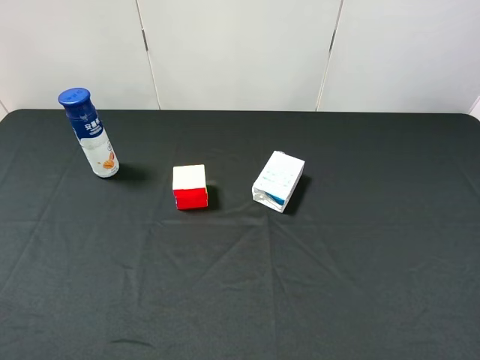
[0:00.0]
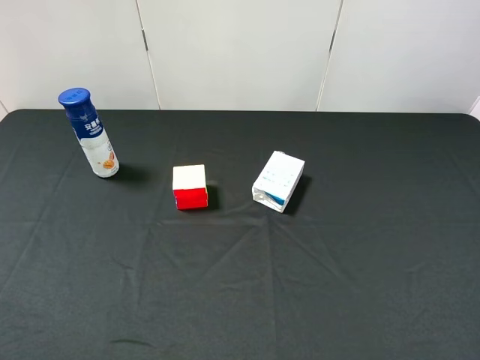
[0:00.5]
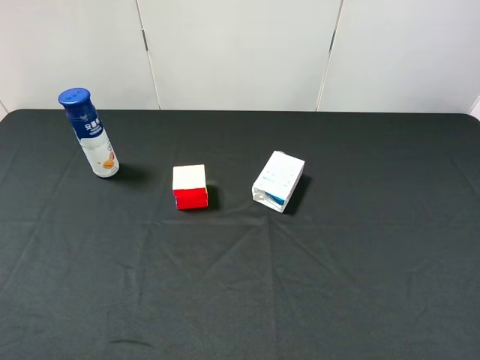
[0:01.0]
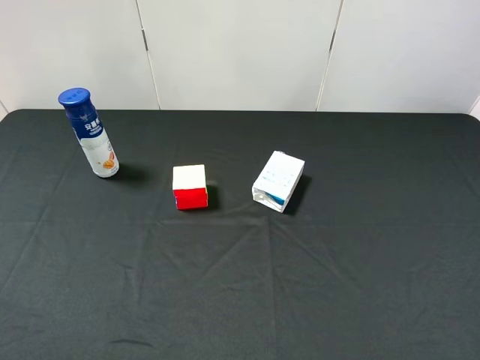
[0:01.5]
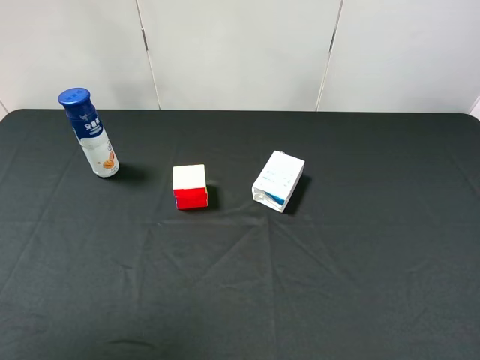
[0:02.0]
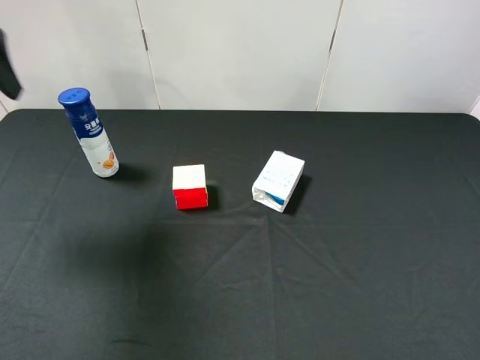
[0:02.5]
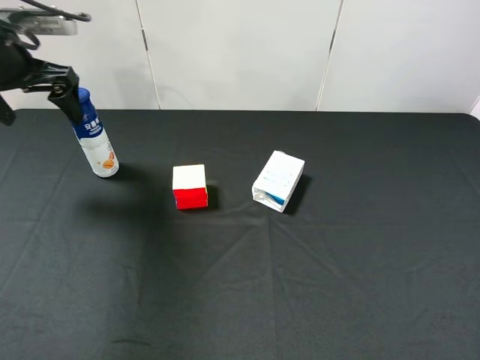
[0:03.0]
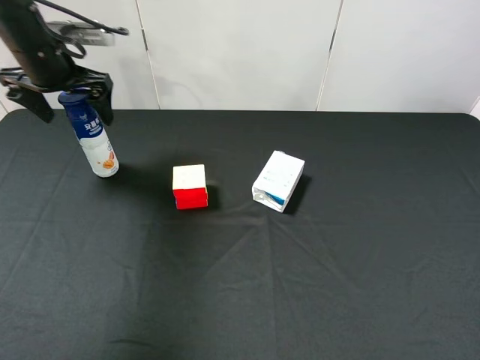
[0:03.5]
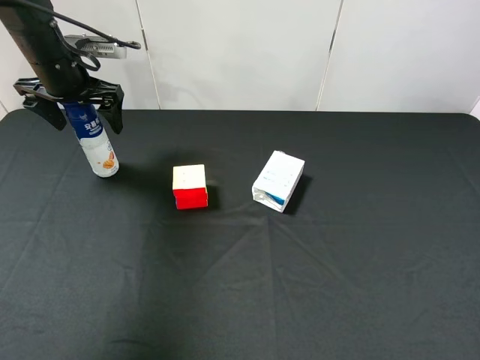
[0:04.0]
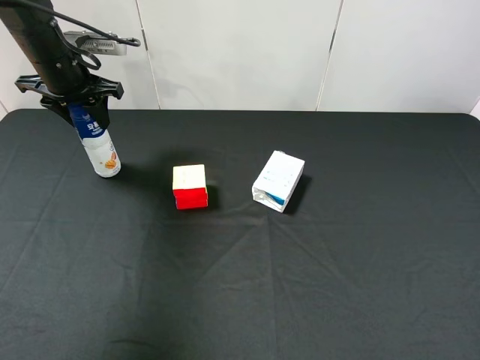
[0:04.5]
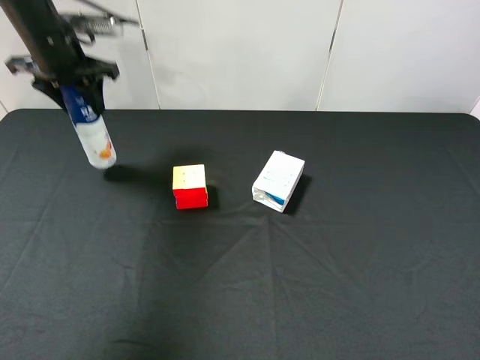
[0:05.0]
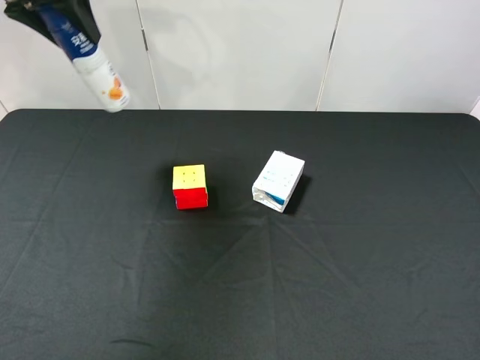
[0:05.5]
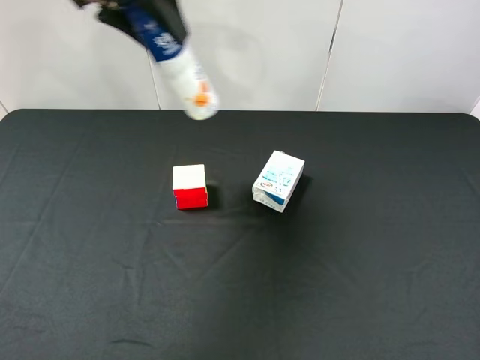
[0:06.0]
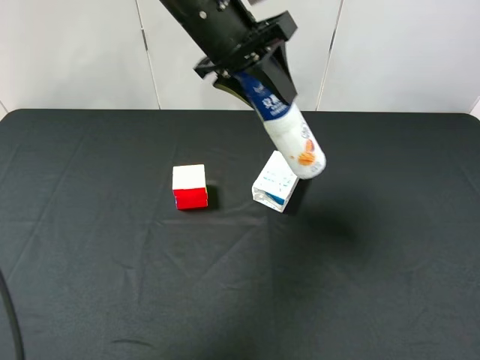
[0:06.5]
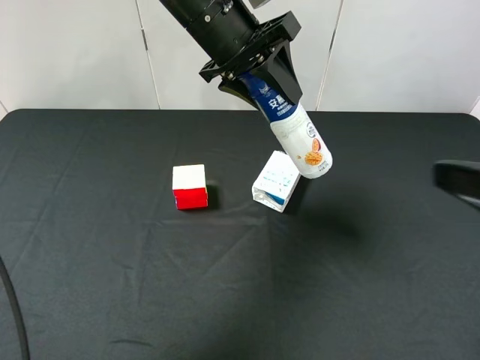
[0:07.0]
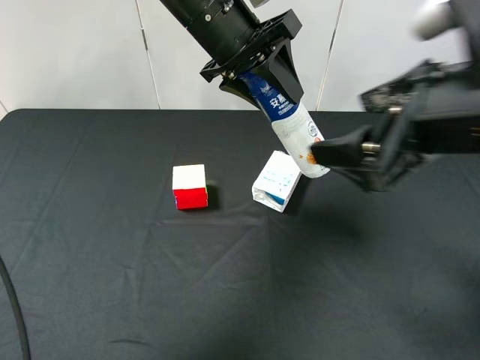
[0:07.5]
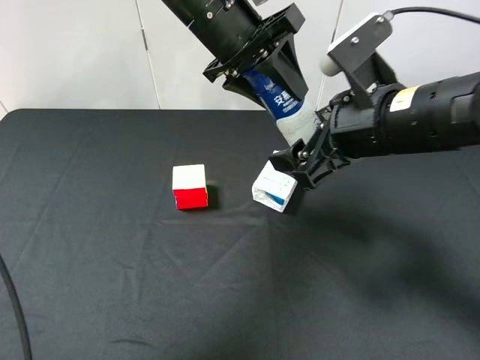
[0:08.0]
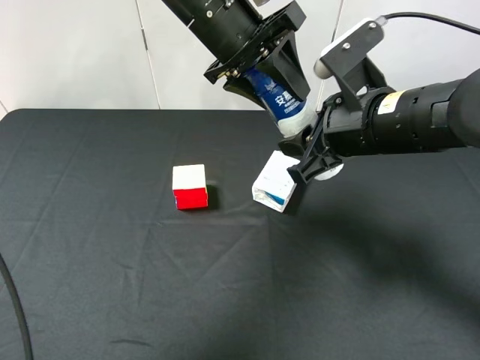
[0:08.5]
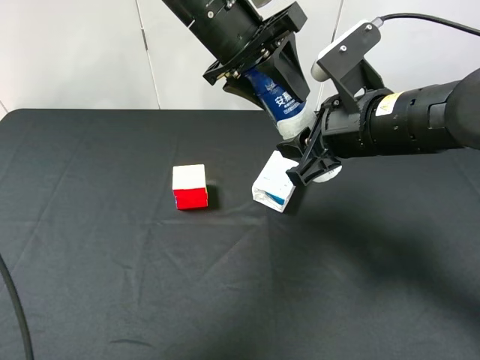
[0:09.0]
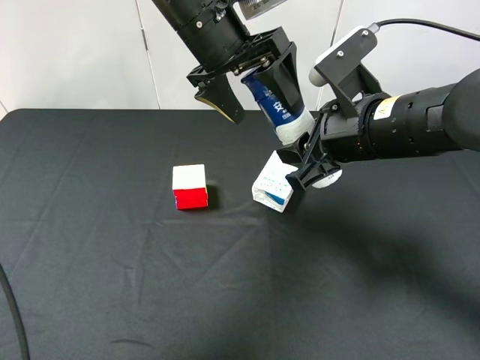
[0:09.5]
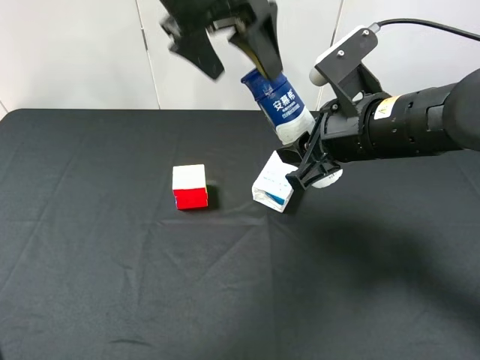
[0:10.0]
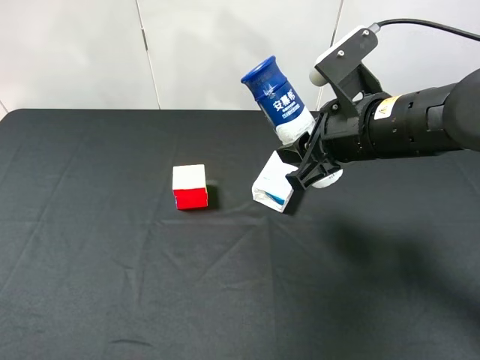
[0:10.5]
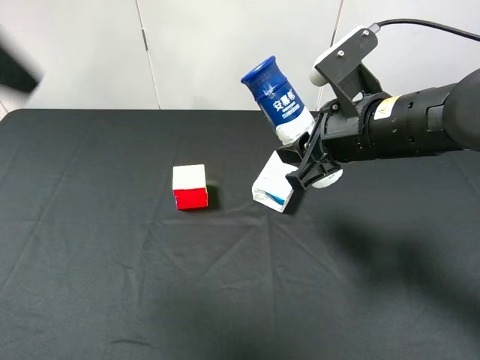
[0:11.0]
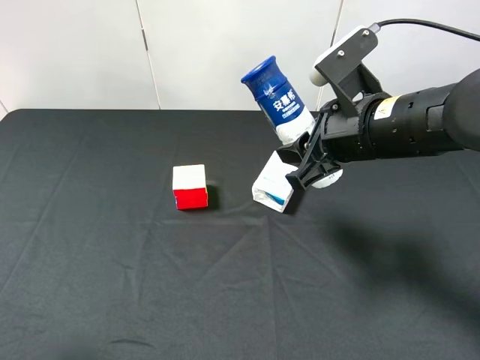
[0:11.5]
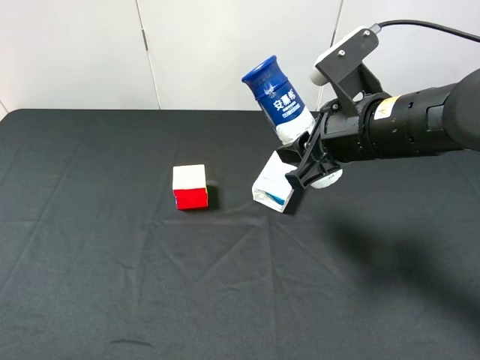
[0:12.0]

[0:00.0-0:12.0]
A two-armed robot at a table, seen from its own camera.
Task of the whole recording: use the left gripper to pick up the item and transfer it from the left gripper to the right gripper.
0:00.0 to 0:02.0: The left gripper travels forward and upward by some 25 cm.
0:02.0 to 0:04.0: The left gripper is displaced forward and downward by some 35 cm.
0:04.0 to 0:06.0: The left gripper is displaced upward and to the right by some 20 cm, and closes.
0:06.0 to 0:08.0: The right gripper travels forward and to the left by approximately 25 cm; the left gripper shifts some 10 cm to the right and downward.
0:08.0 to 0:10.0: The left gripper heads upward, covering approximately 5 cm, and opens up. The right gripper closes.
0:10.0 to 0:12.0: The left gripper heads backward and to the left, covering approximately 40 cm.

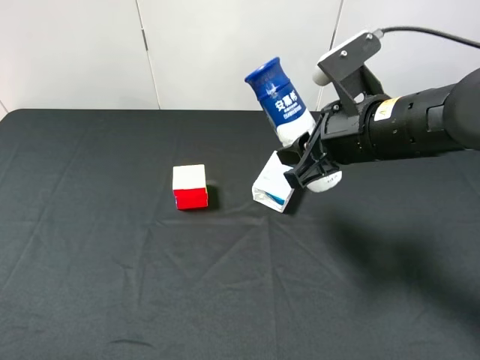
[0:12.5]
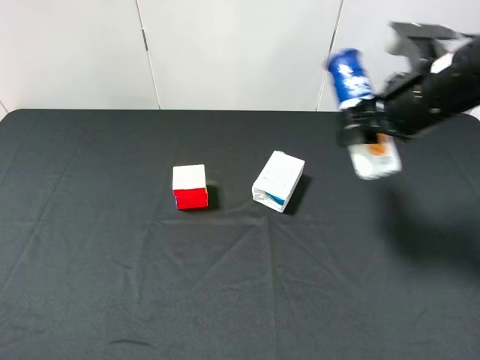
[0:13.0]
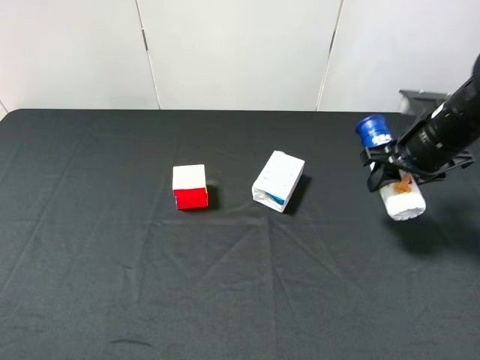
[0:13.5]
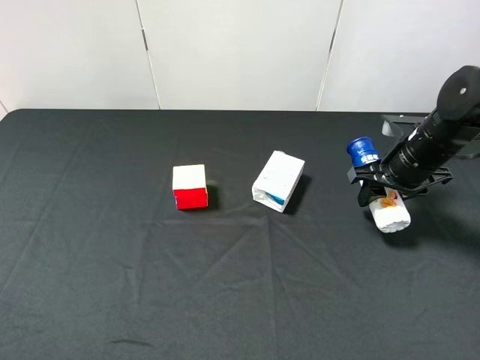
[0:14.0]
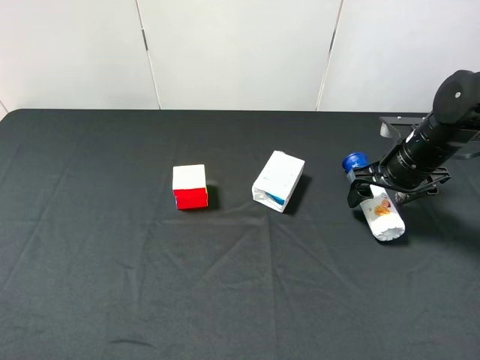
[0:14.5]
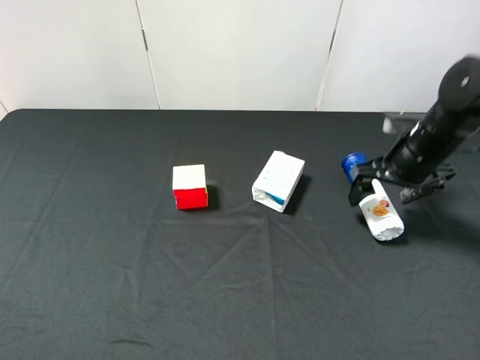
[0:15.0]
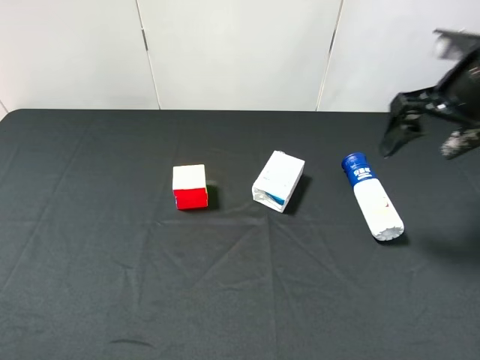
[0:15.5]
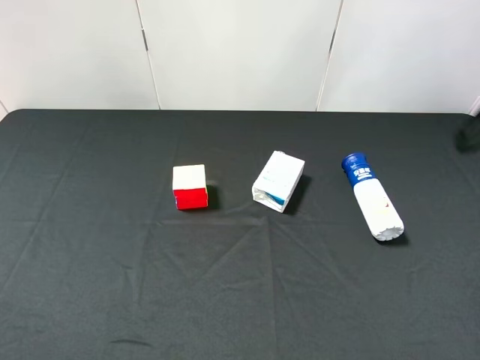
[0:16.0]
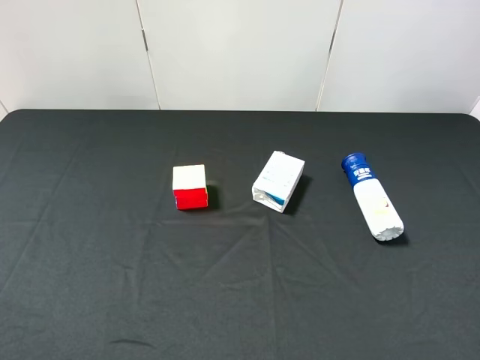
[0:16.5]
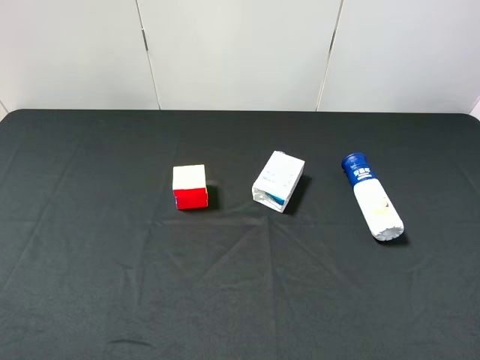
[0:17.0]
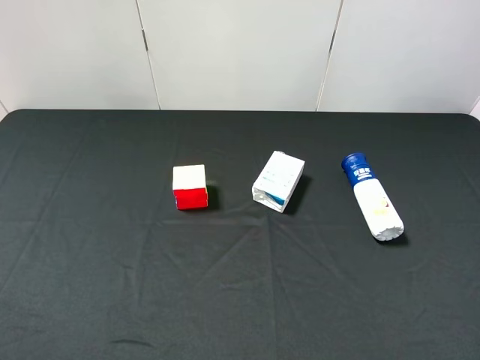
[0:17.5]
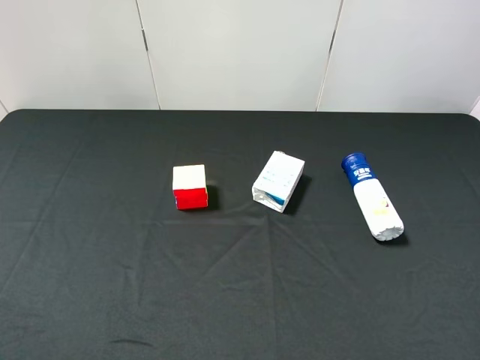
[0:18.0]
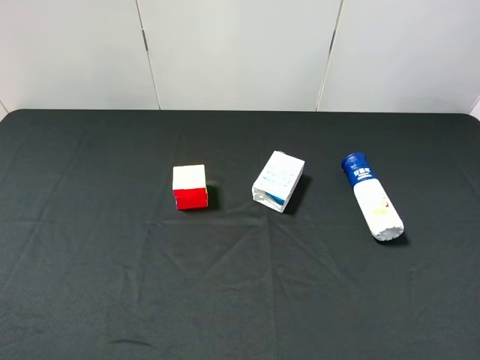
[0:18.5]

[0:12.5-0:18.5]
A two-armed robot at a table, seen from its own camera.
Task of the whole recording: use the left gripper to pick up the item and transfer it from the left gripper to the right gripper.
0:12.5 to 0:14.5: The right gripper travels to the right, downward and forward by approximately 15 cm, and opens its fingers.
0:14.5 to 0:16.5: The right gripper goes some 35 cm backward and upward.

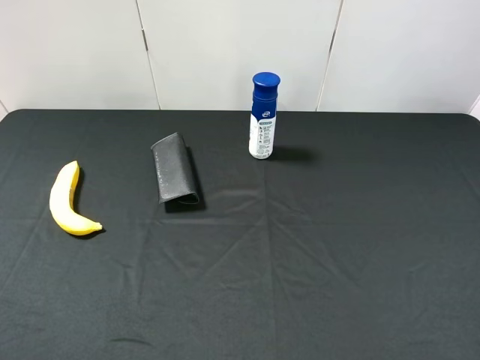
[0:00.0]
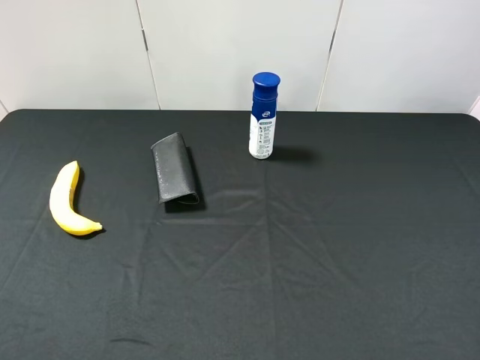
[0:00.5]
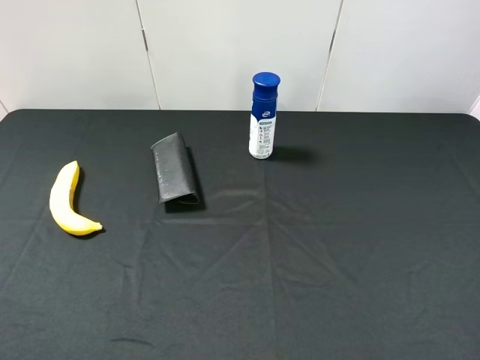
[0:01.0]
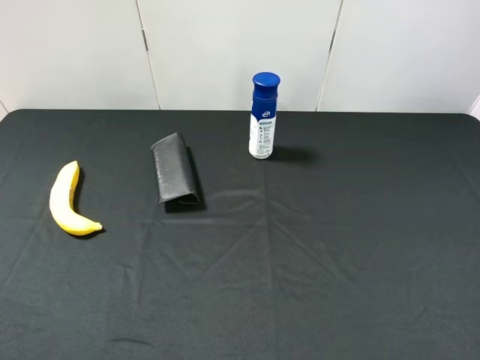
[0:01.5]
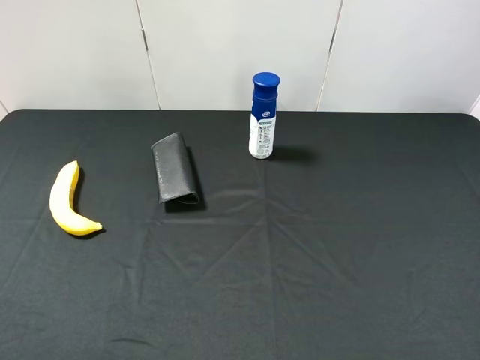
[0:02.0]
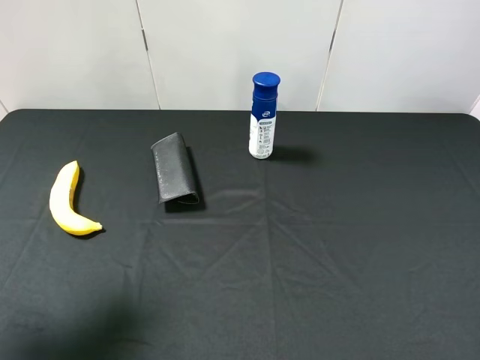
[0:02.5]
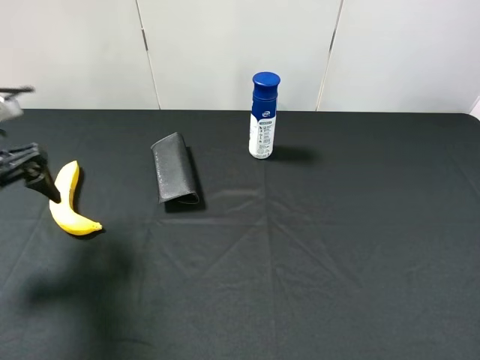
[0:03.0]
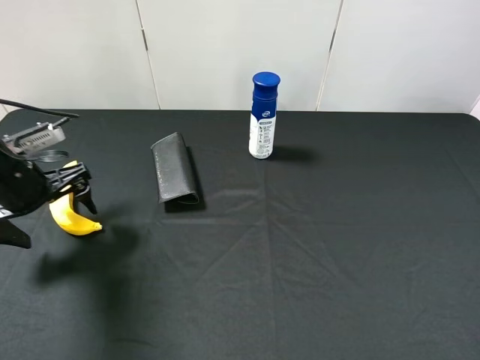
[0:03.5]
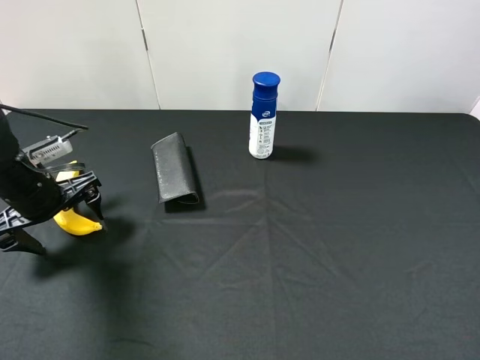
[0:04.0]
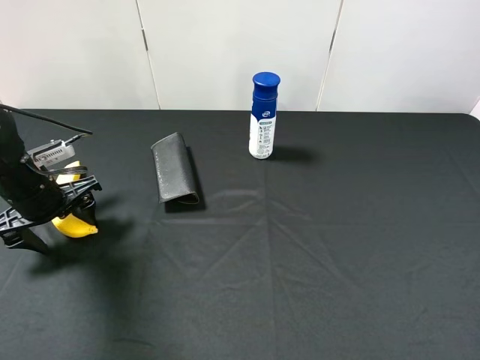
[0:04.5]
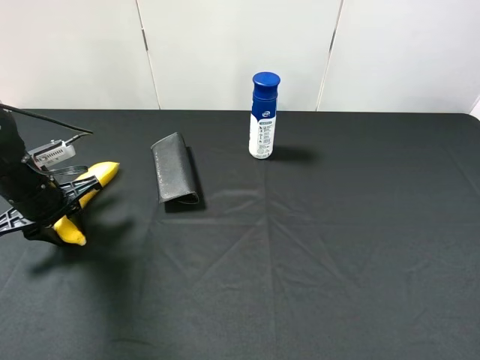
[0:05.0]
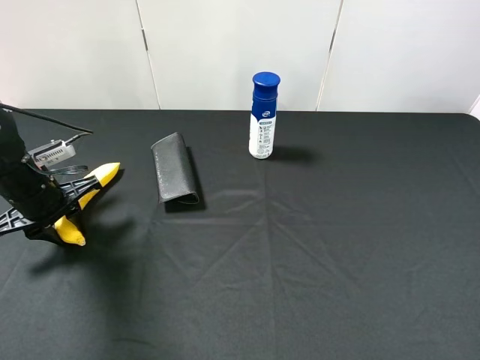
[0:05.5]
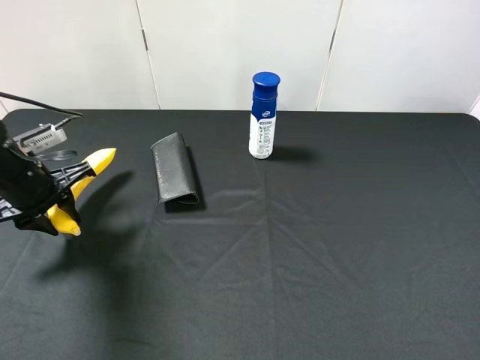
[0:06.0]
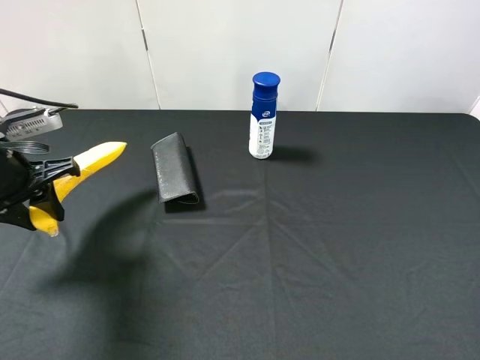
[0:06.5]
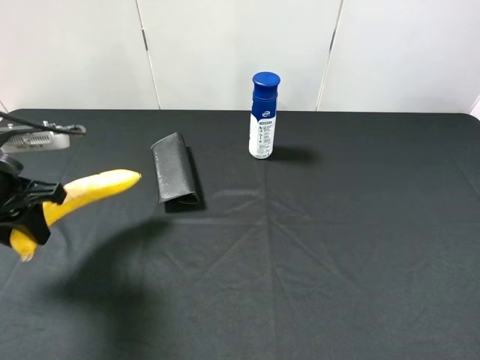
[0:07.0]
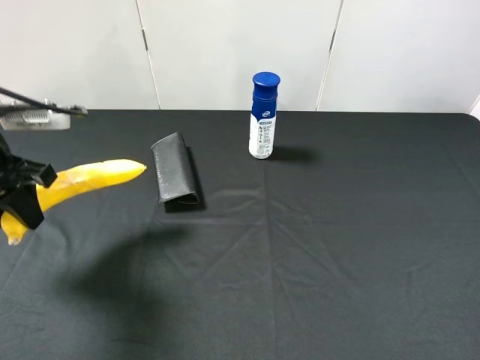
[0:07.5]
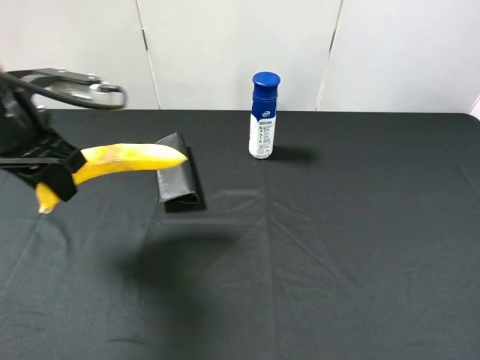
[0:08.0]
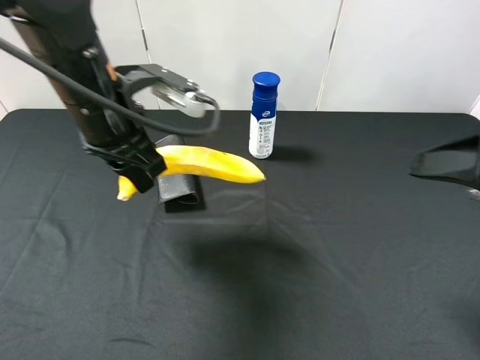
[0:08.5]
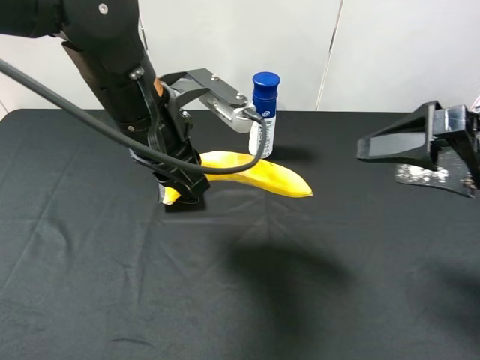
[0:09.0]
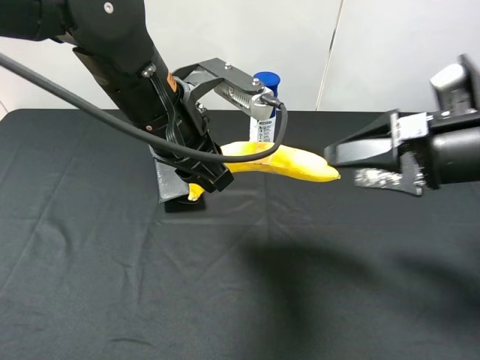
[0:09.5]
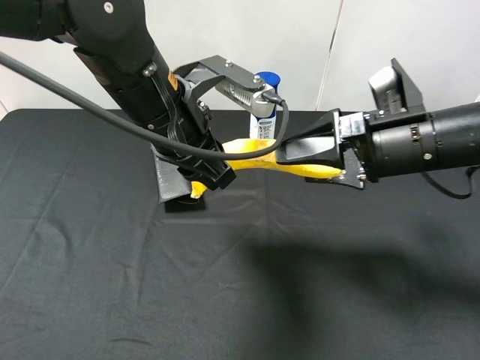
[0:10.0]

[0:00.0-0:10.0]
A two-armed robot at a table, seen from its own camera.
Task of the whole recording: use the left gripper to pick up the item and transfer it from the left gripper to the right gripper.
0:02.0 to 0:04.0: The left gripper moves forward and downward, roughly 30 cm.
0:04.0 to 0:06.0: The left gripper closes.
0:06.0 to 0:08.0: The right gripper travels forward by approximately 5 cm; the left gripper shifts about 10 cm upward and to the right.
0:08.0 to 0:10.0: The right gripper shifts about 20 cm forward, to the left and downward, while the left gripper is displaced to the right by about 15 cm.
